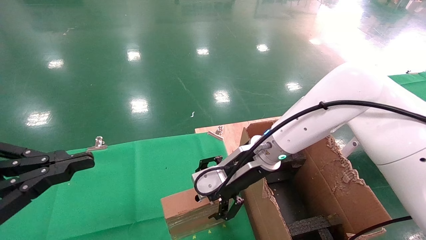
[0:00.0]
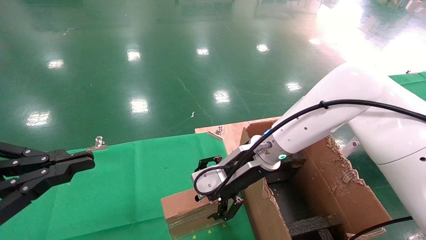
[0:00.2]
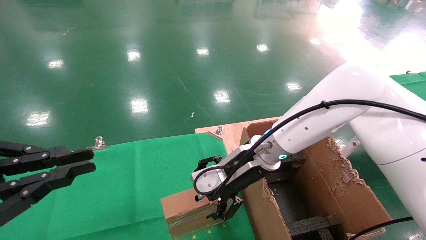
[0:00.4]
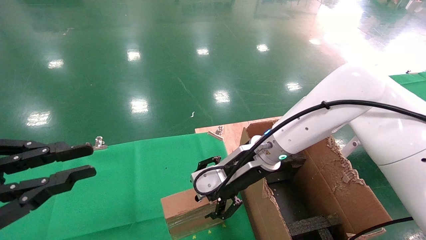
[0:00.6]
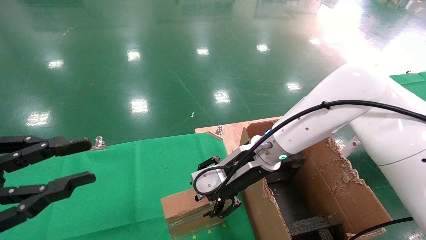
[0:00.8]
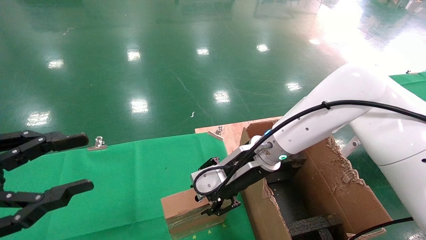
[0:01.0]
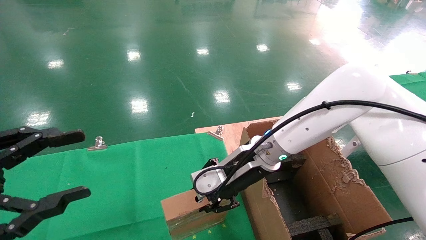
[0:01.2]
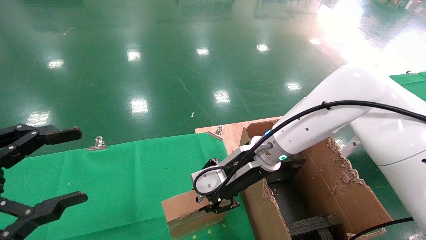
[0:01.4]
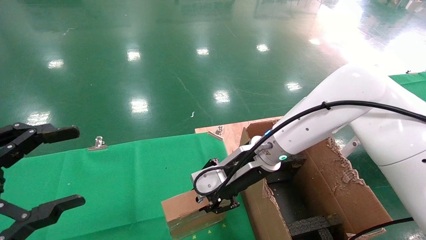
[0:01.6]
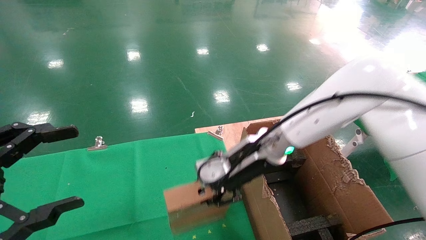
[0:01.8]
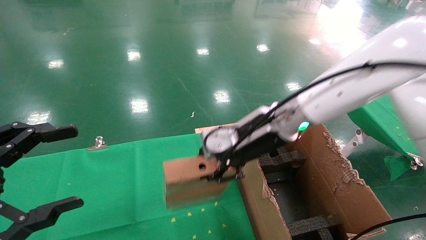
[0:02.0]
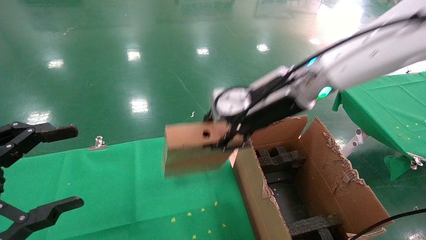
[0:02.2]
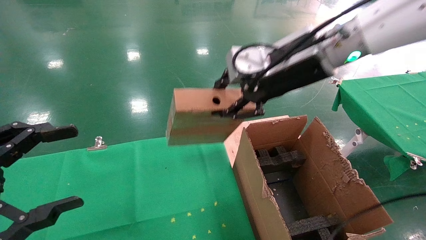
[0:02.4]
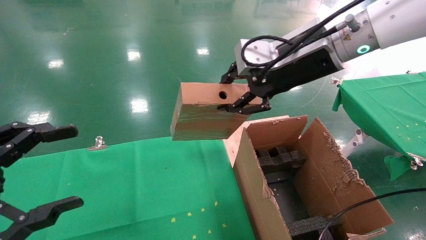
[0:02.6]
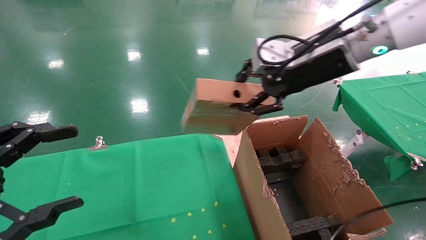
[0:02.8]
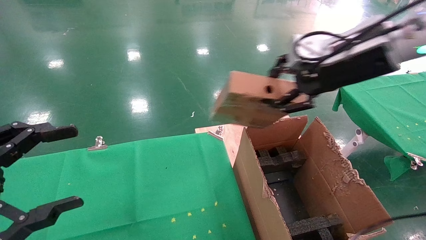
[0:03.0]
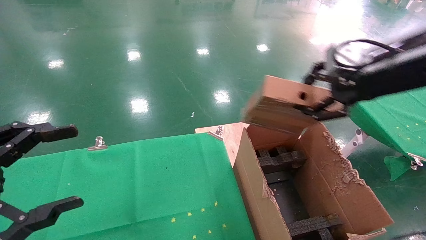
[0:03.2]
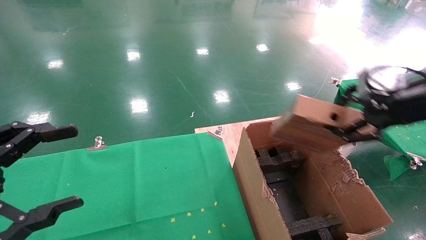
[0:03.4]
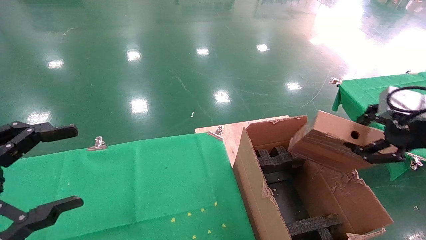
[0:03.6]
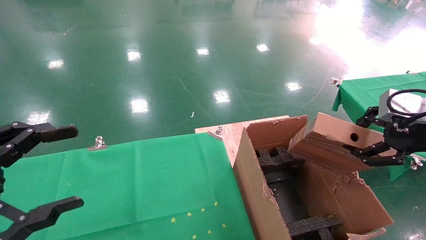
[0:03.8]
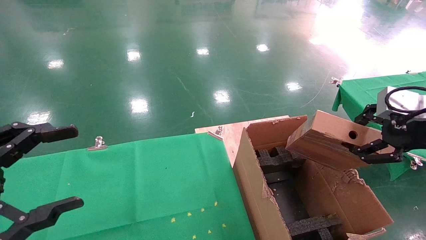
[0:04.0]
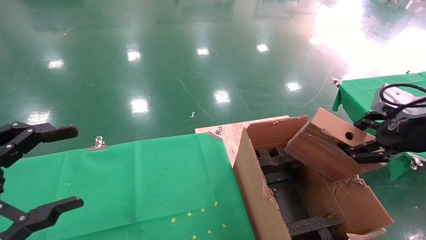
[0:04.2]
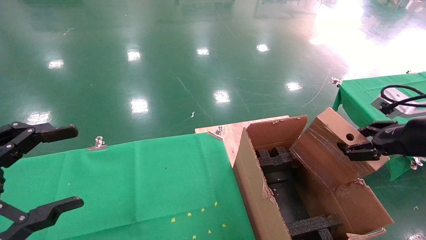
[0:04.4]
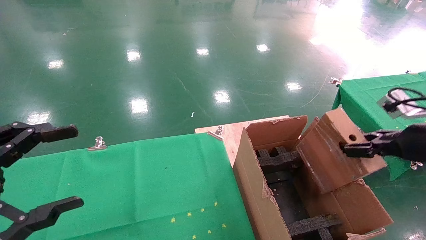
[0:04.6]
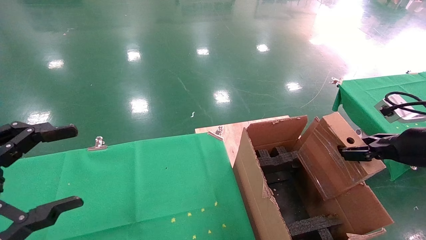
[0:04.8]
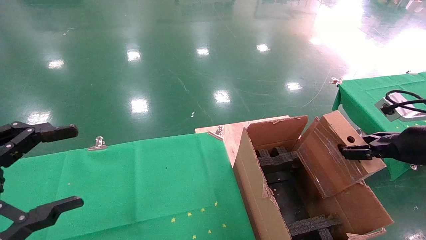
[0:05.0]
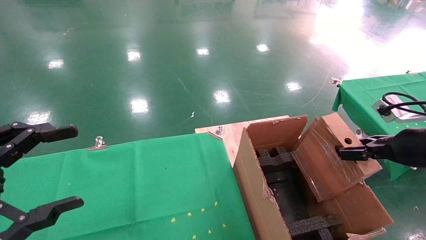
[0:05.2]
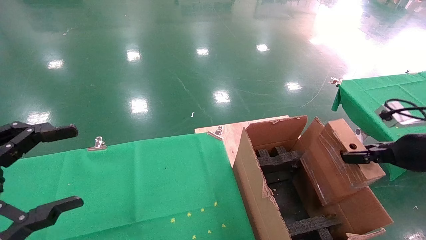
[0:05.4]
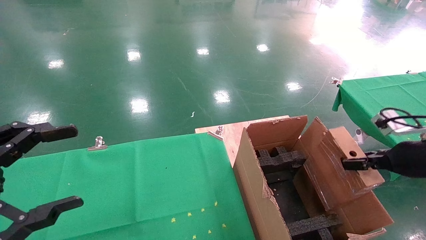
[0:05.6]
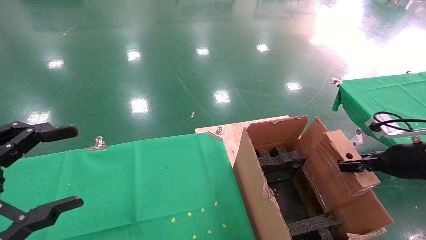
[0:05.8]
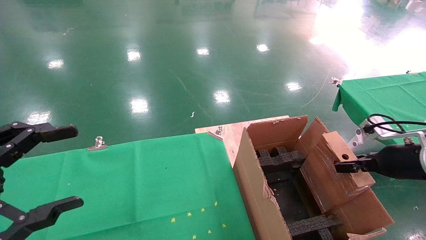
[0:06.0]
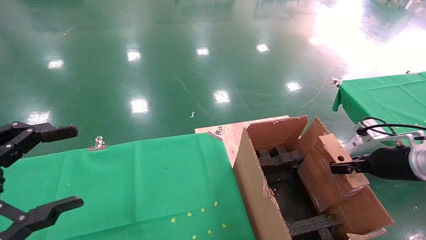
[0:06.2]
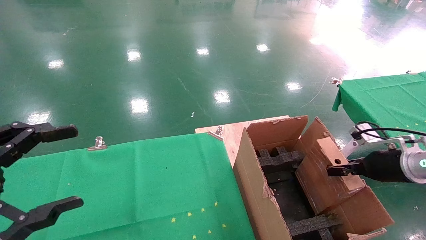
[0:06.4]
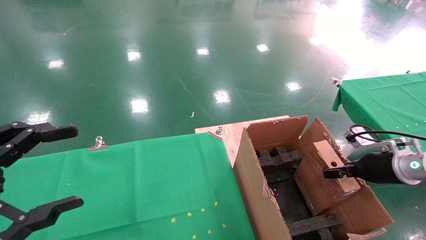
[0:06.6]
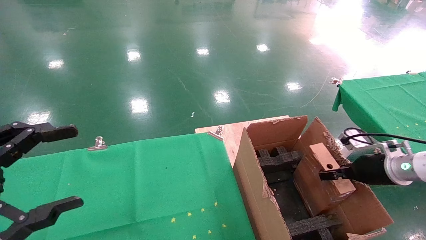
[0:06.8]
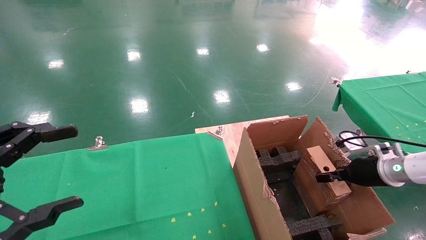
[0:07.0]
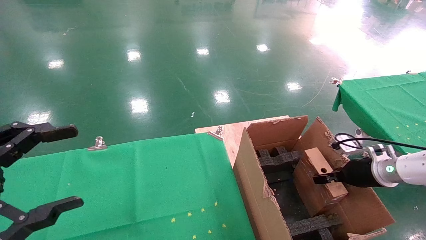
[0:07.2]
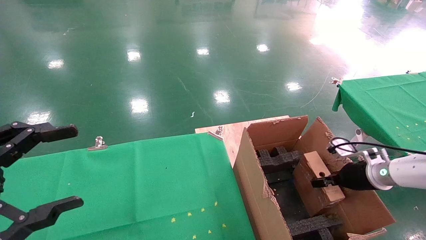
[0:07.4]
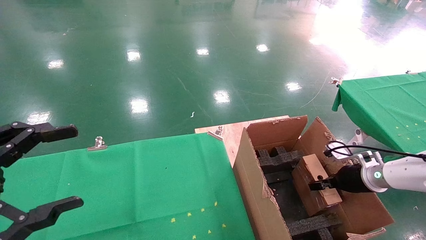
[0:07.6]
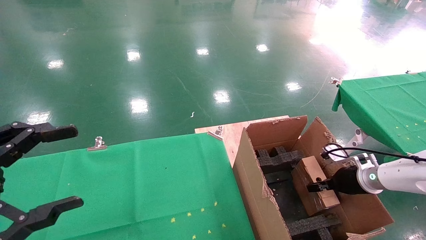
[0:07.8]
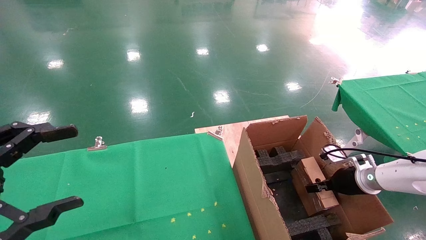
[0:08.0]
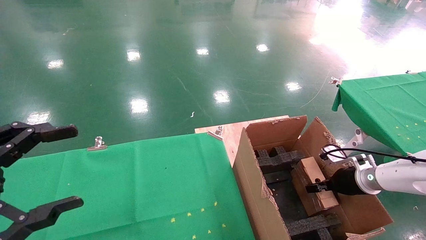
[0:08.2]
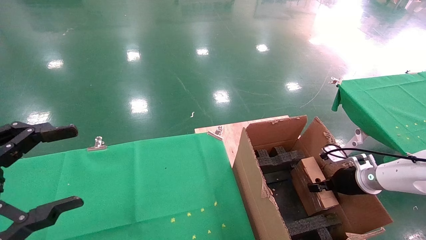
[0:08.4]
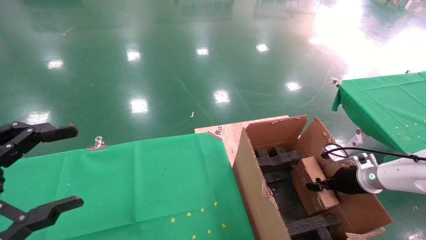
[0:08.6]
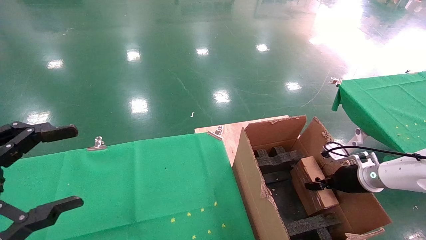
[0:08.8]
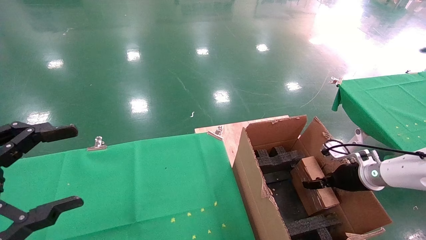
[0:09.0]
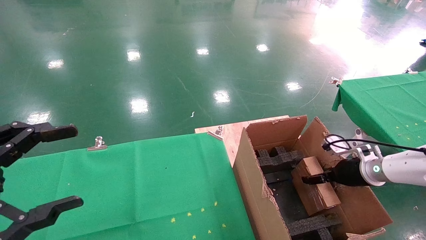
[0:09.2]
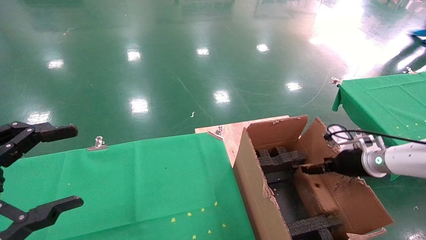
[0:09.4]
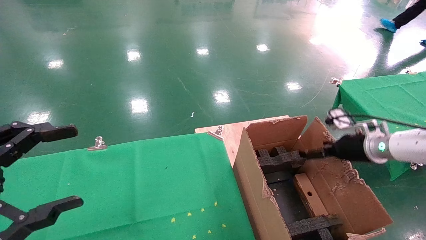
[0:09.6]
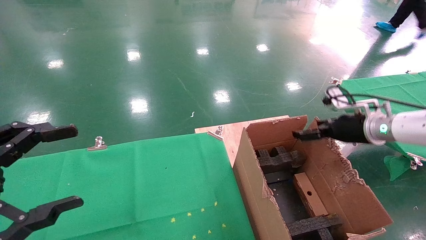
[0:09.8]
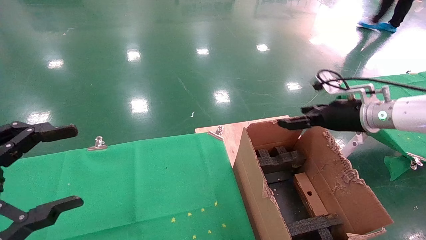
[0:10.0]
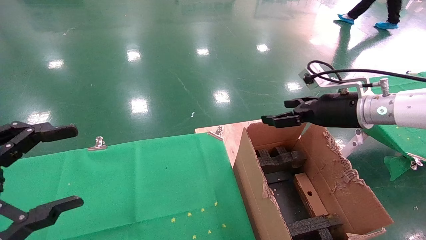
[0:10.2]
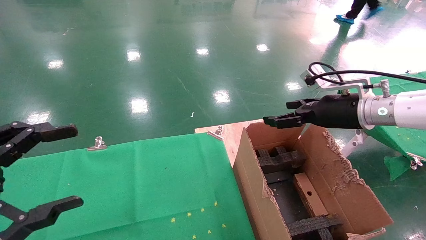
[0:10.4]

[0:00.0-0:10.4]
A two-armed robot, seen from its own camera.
Task of the whole recording: using a robotic arm to pick up a cardboard box and palace it the carton.
Step, 0:00.0 to 0:01.4: Pick up the mouse and the power cord paper box.
Step, 0:01.6 to 0:09.6: Place the mouse and the power cord paper box into the container.
0:00.0 to 0:01.4: The left gripper opens. The right gripper closes.
0:01.4 to 0:03.0: The right gripper moves upward and to the right, some 25 cm.
0:03.0 to 0:04.4: The right gripper travels to the right, downward and backward by about 20 cm.
0:04.4 to 0:06.0: The right gripper shifts about 10 cm downward and forward.
0:06.0 to 0:07.4: The right gripper moves downward and forward, about 10 cm.
0:07.4 to 0:09.0: The right gripper opens its fingers.
0:09.0 to 0:10.4: The right gripper shifts about 20 cm upward and to the left, and opens its fingers.

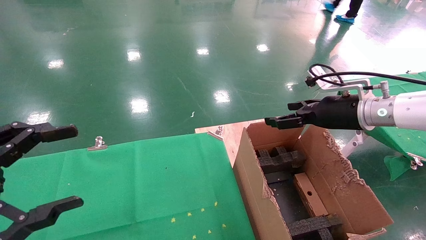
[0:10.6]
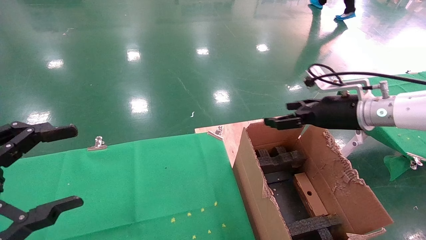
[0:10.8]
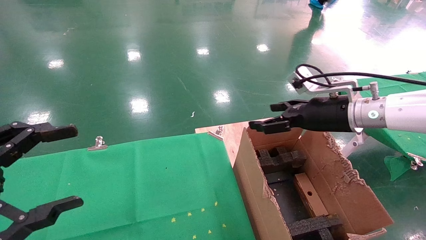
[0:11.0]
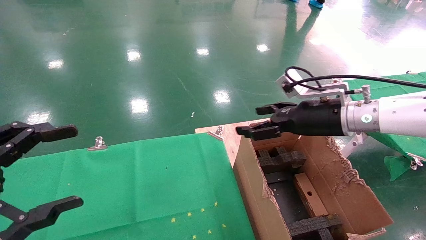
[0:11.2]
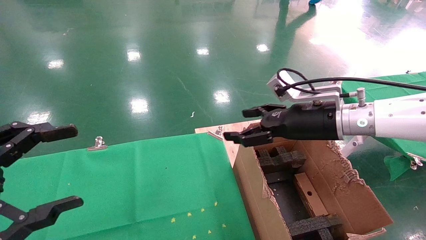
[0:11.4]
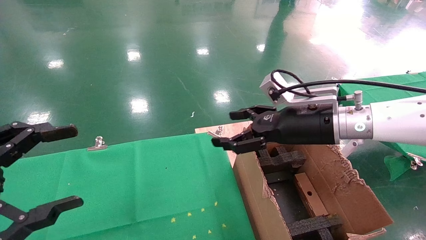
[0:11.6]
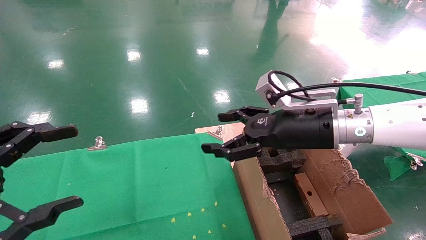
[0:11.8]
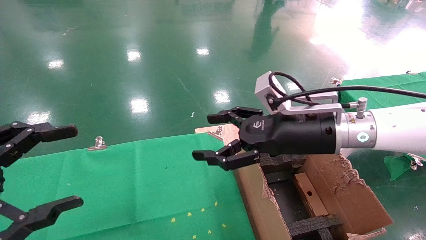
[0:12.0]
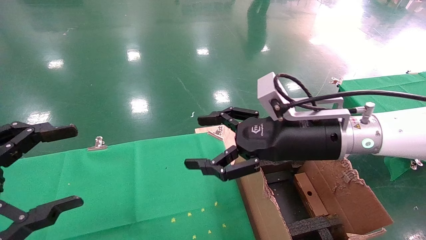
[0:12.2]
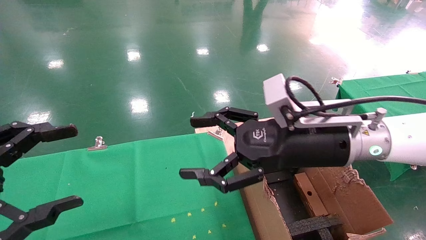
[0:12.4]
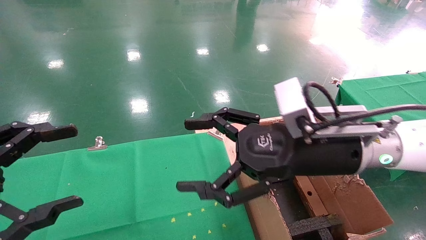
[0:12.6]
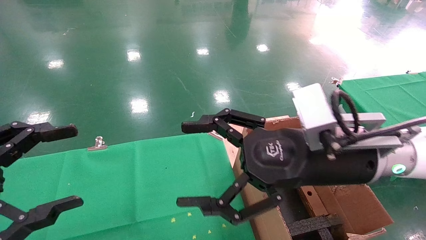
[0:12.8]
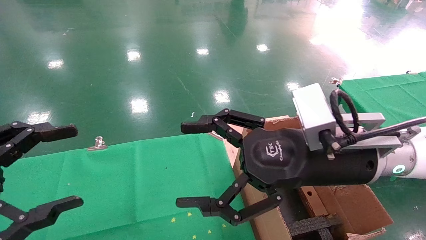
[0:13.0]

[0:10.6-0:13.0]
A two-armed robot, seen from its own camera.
Task of the whole recording: using a robotic arm to pick up a cardboard box and palace it the carton.
0:10.6 to 0:11.8: The right gripper travels to the left by some 10 cm.
0:11.8 to 0:13.0: The right gripper heads backward, covering approximately 10 cm.

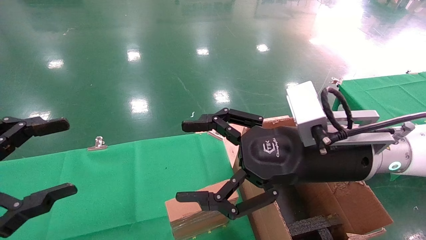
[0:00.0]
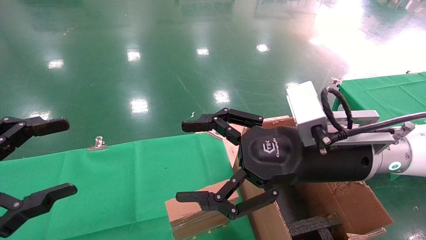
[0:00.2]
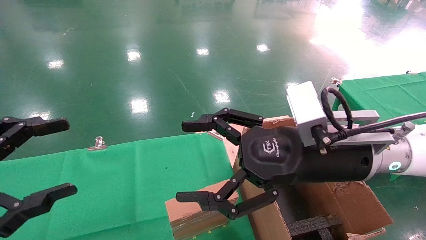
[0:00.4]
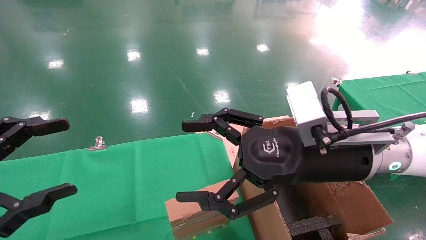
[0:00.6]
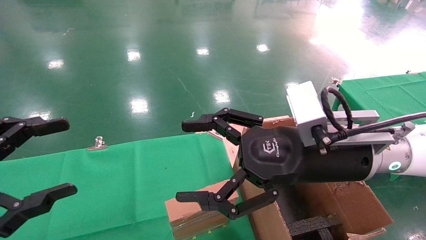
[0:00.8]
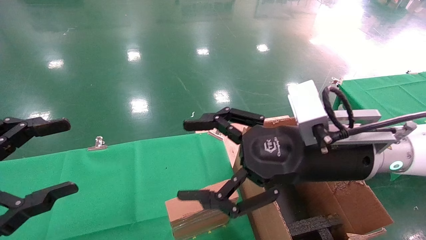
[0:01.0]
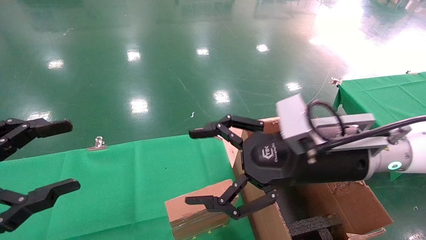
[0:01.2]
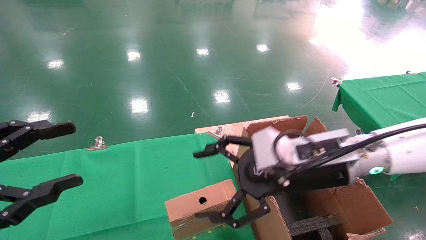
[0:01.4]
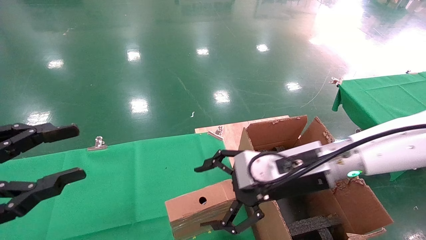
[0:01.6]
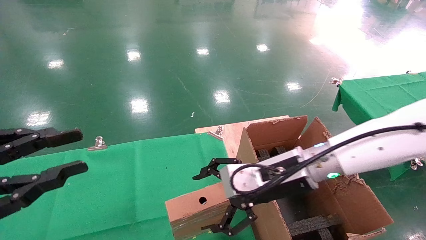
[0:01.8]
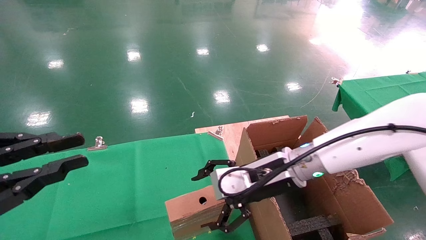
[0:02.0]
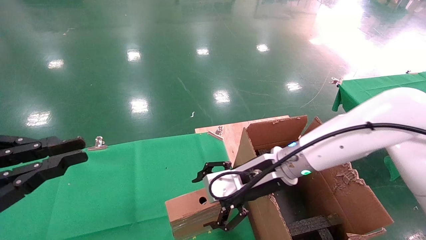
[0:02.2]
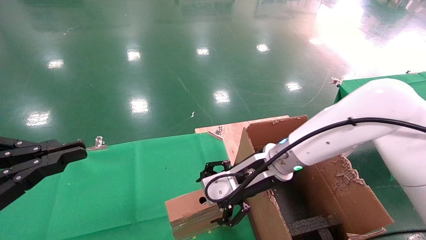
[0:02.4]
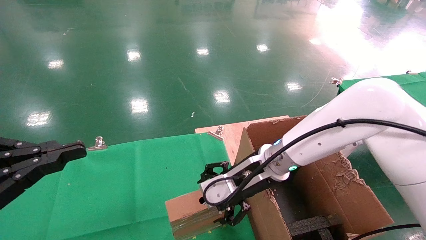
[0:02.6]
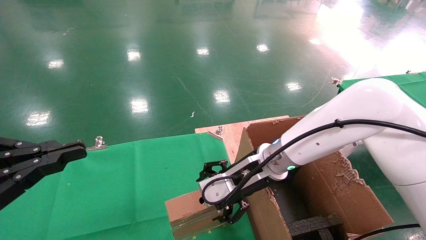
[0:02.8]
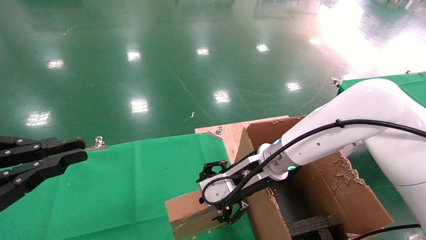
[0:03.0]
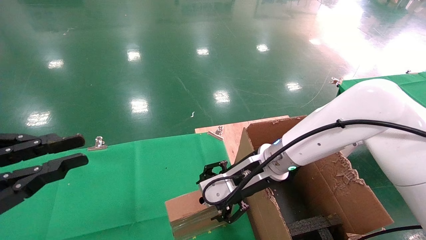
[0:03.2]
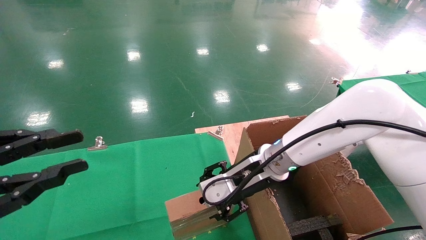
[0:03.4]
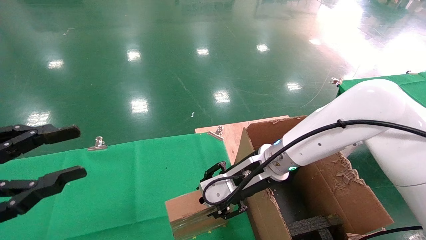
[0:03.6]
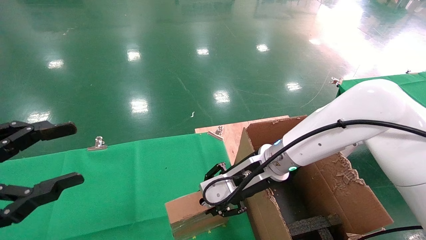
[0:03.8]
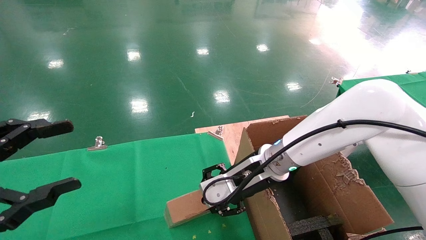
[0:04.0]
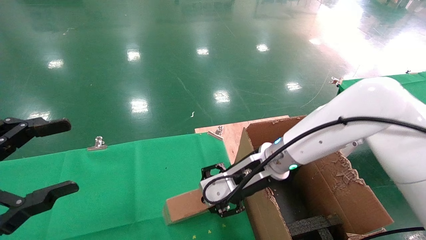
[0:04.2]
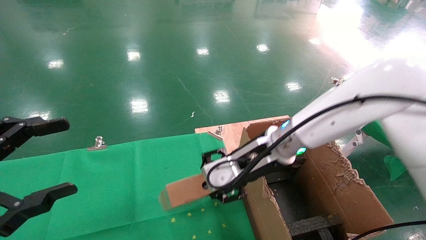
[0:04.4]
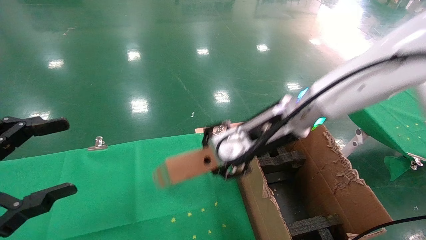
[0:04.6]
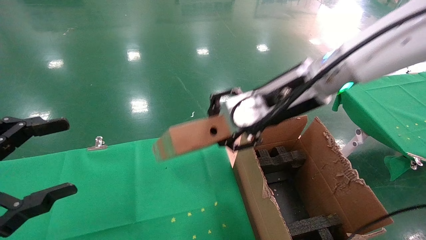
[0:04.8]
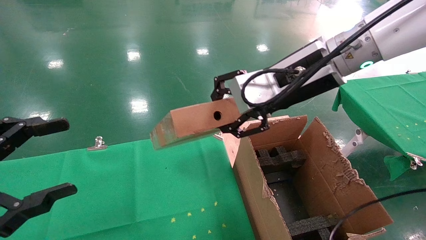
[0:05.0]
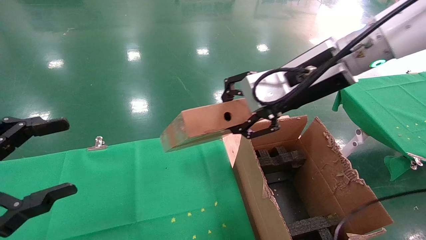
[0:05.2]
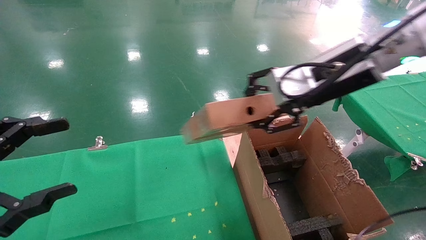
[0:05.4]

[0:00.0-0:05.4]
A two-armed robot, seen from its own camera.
Task of the whole recording: using a robotic arm to pick up a cardboard box and palace it the carton.
Step, 0:01.4 to 0:03.8: Pick up the mouse and the power cord paper box.
0:01.4 to 0:02.8: The left gripper closes up. The right gripper heads forward and to the left, covering about 10 cm.
0:02.8 to 0:04.0: The left gripper opens. The right gripper closes.
0:04.0 to 0:05.4: The right gripper shifts some 20 cm upward and to the right.
